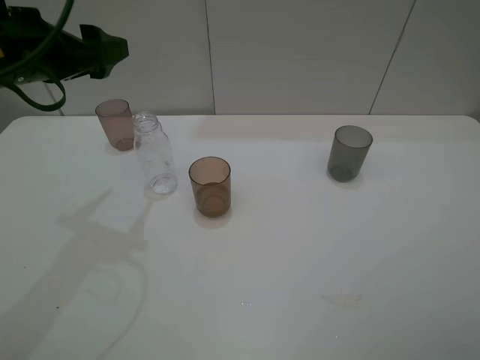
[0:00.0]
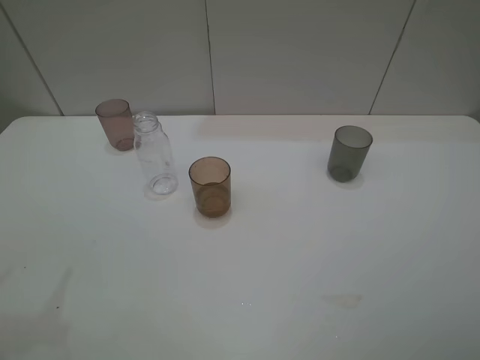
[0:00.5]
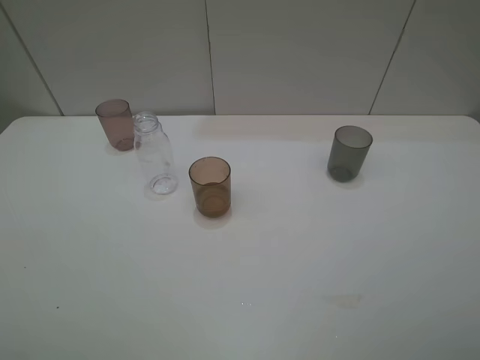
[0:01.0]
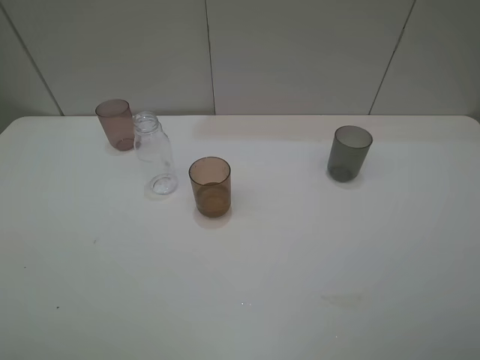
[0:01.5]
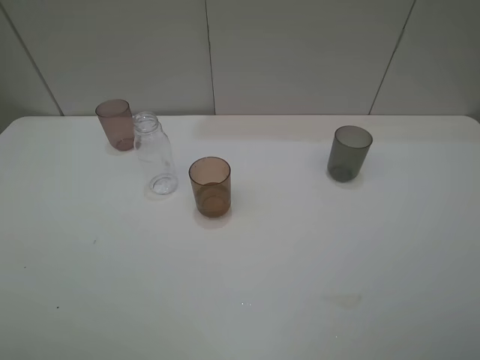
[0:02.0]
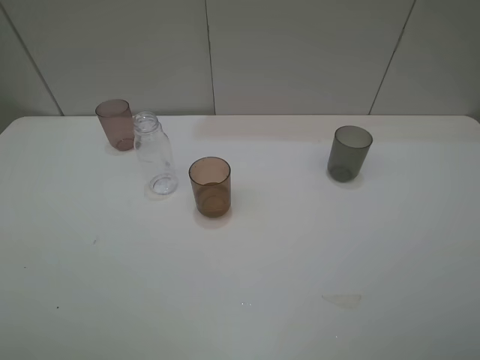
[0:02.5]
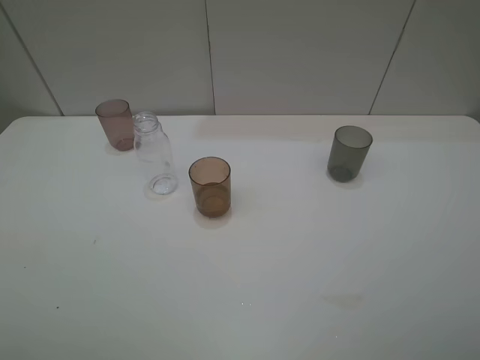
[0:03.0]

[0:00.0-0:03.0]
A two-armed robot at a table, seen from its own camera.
Task of the whole recording: pick up the bottle filled with water and pour water into the middle cup of the three cups.
0:00.0 to 0:01.5: The left gripper shifts roughly 30 cm backward.
